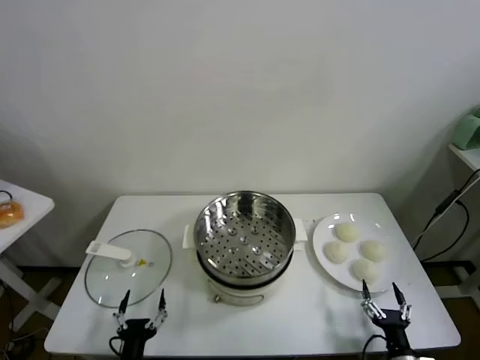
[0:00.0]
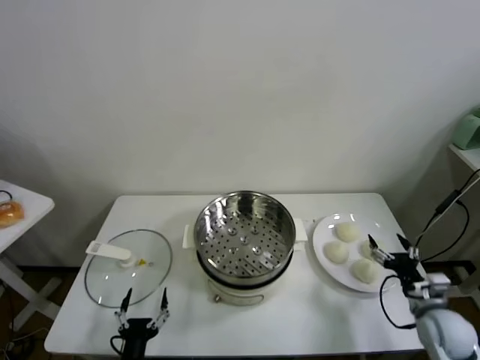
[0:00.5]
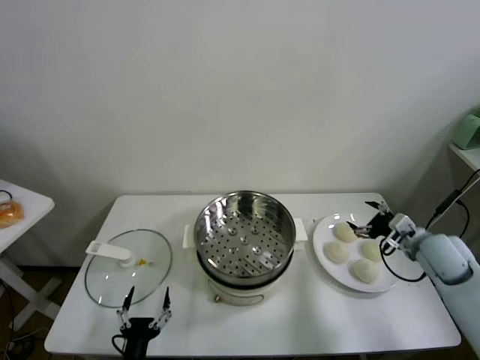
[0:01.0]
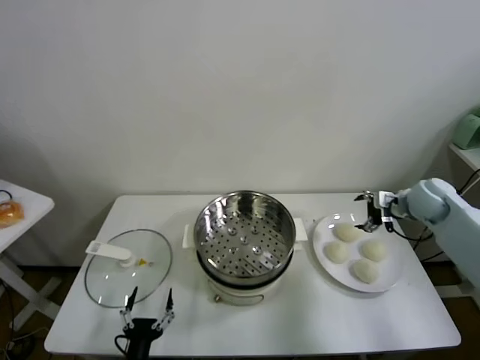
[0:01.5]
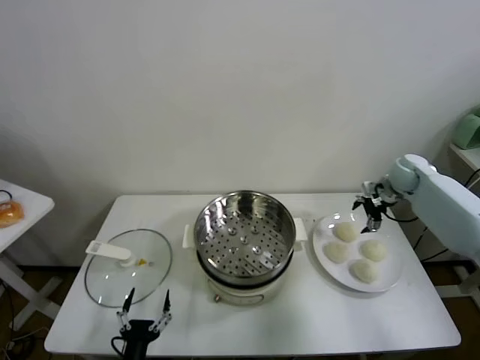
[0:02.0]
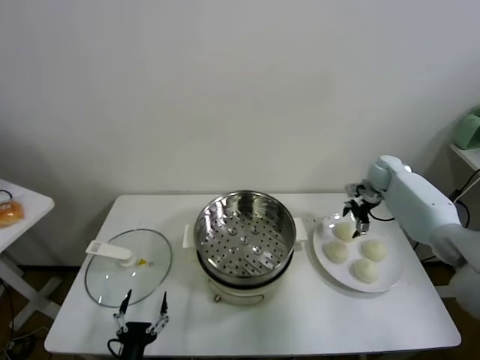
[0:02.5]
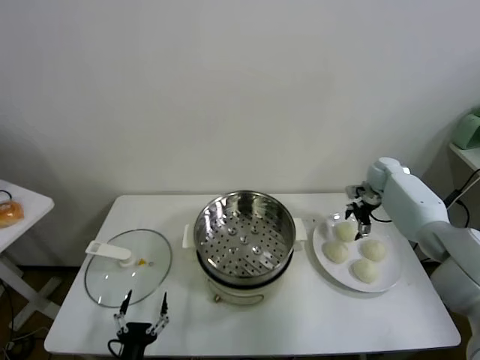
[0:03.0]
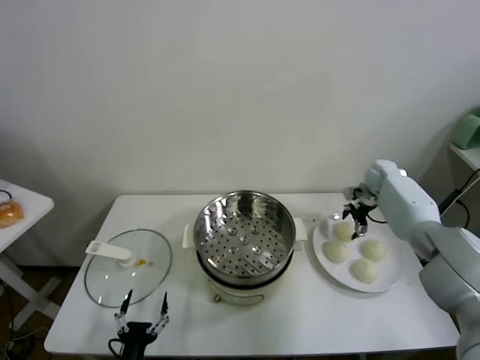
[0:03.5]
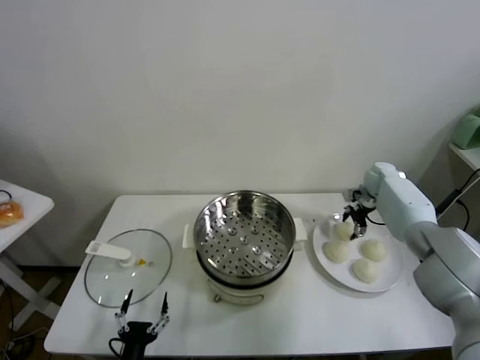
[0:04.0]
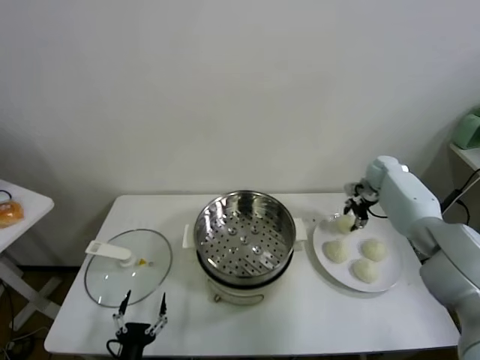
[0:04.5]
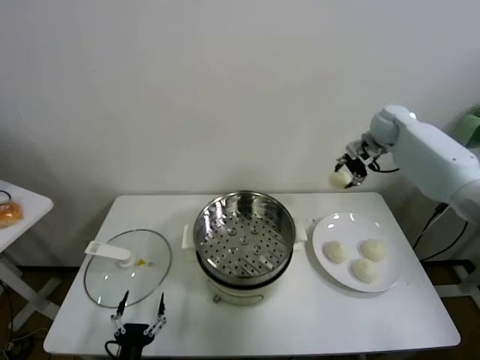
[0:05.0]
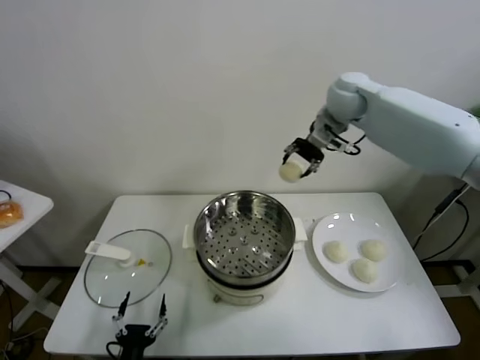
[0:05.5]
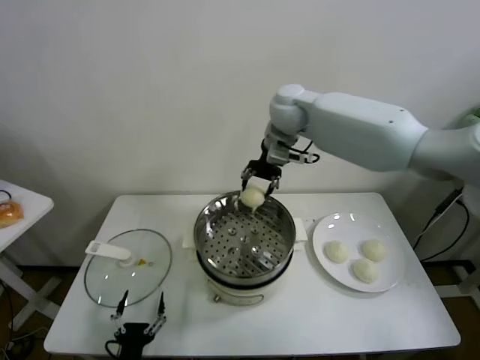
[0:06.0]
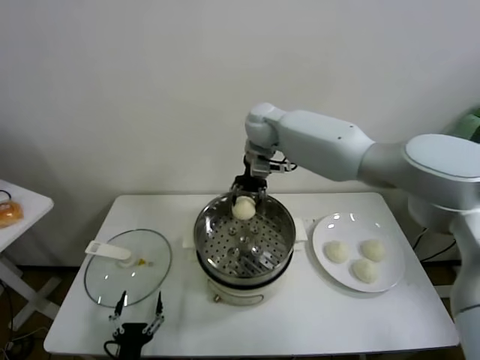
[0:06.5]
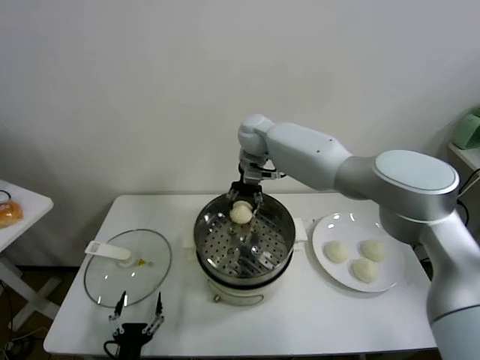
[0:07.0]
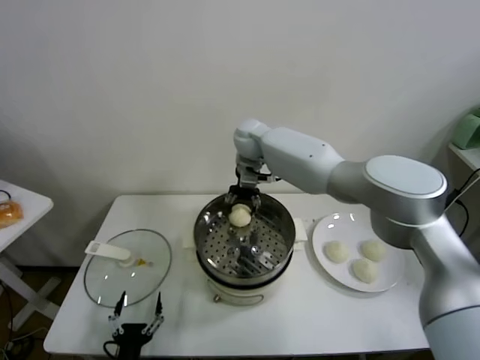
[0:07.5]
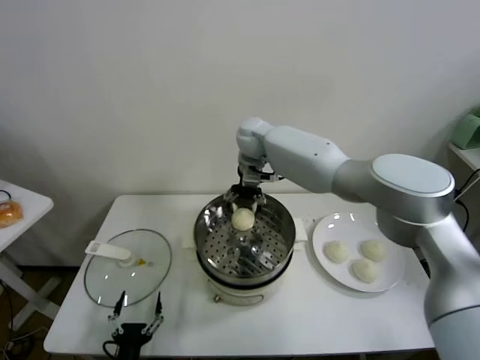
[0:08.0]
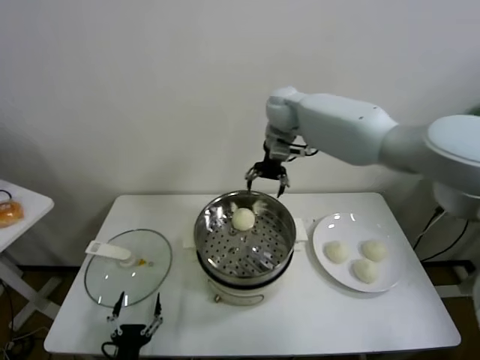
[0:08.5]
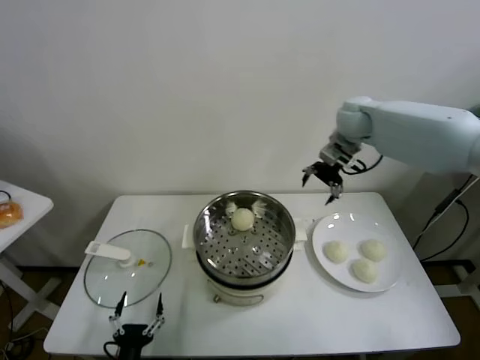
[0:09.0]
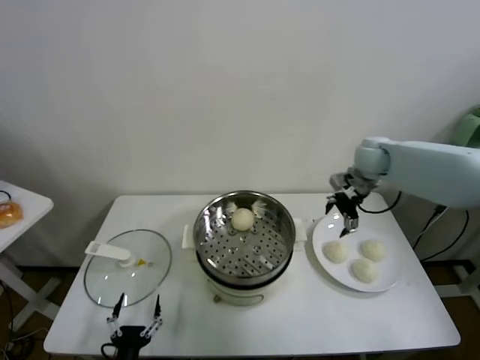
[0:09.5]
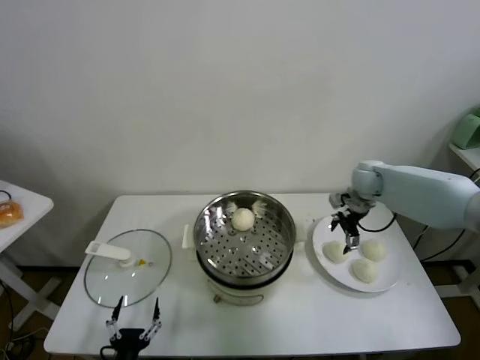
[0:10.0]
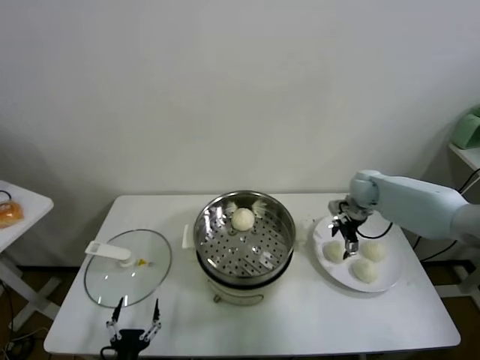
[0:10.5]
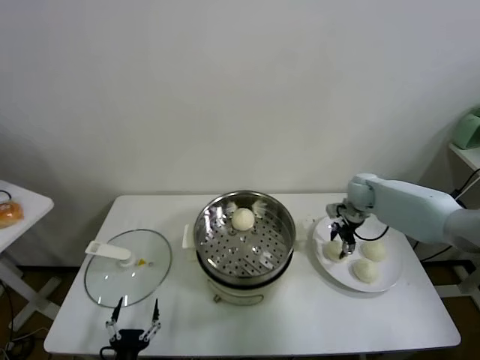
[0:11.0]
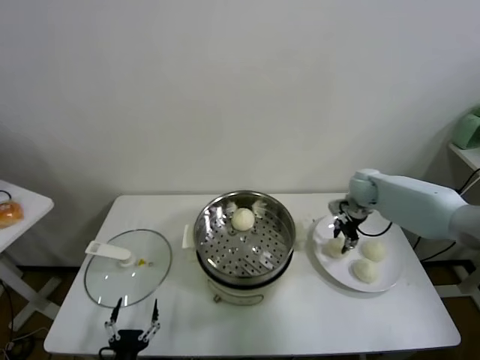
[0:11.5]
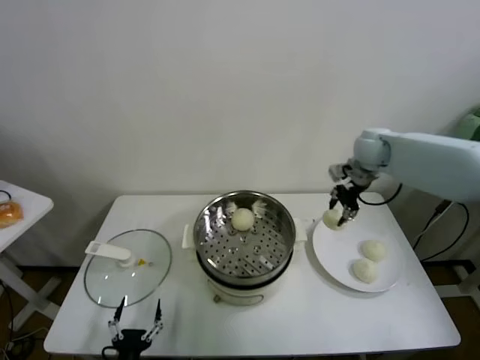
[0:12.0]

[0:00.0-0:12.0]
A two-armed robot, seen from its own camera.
Task of the whole recording: take steamed baozi put them in steamer.
Step, 0.0 to 4.0 s: Grasp the baozi in the plate with right gripper.
Step, 4.5 to 8.0 s: Place the baozi on the steamer with right gripper.
Step, 8.5 to 11.0 s: Grasp the baozi in the plate with right gripper.
2.0 to 4.0 s: The right gripper goes roughly 5 cm downward, and closes its fingers.
4.0 to 6.0 s: The right gripper shifts about 40 cm to the left and upward.
6.0 to 8.0 s: The right gripper shifts about 10 cm downward and to the left, and opens its fingers.
8.0 to 10.0 s: The right gripper heads to the right, covering about 30 cm.
10.0 to 12.0 s: The right gripper goes approximately 10 cm upward, and closes.

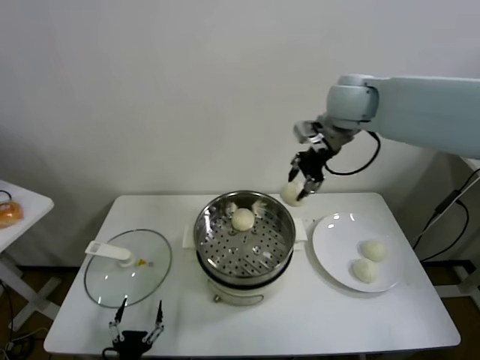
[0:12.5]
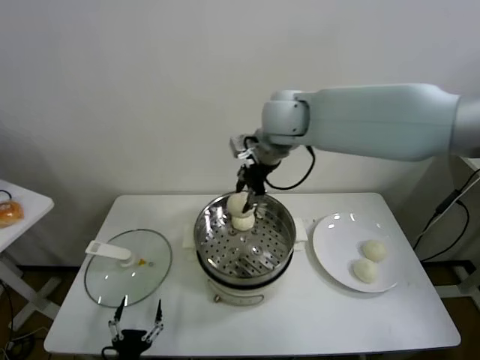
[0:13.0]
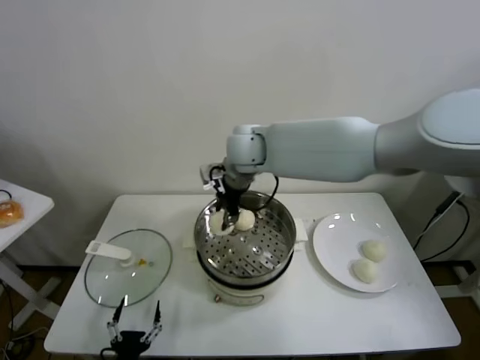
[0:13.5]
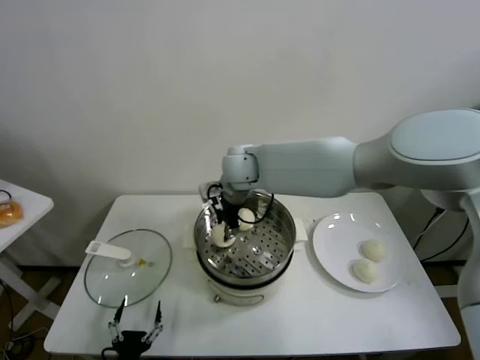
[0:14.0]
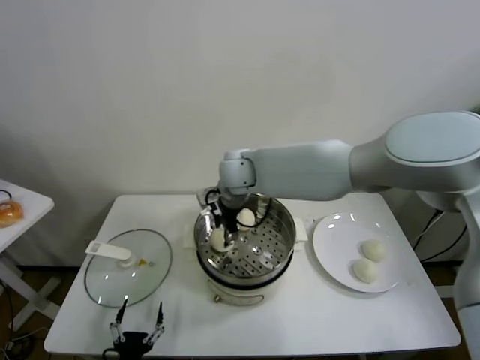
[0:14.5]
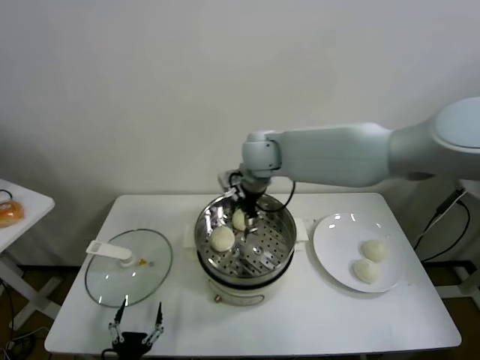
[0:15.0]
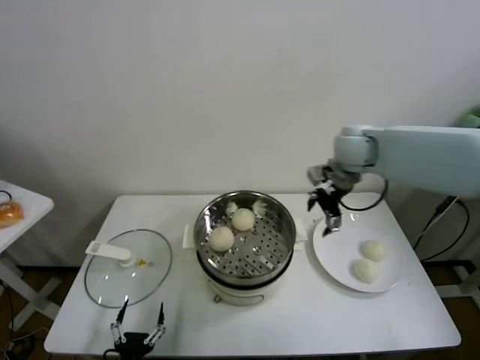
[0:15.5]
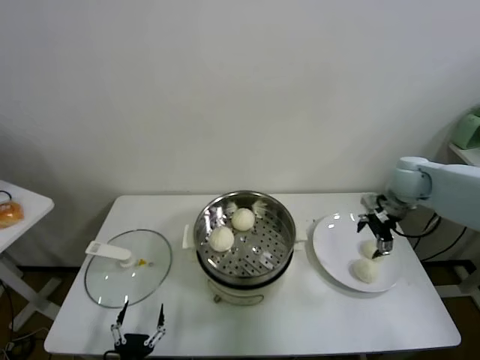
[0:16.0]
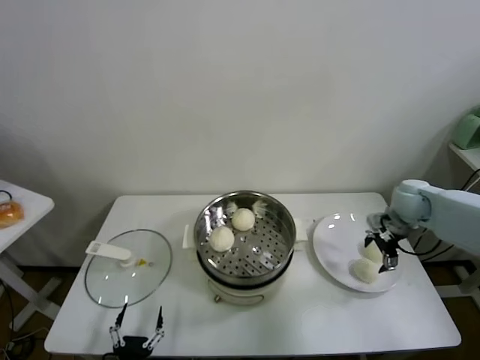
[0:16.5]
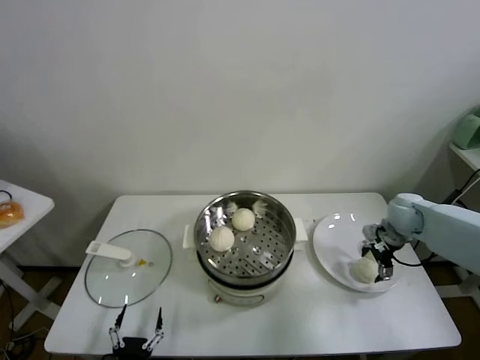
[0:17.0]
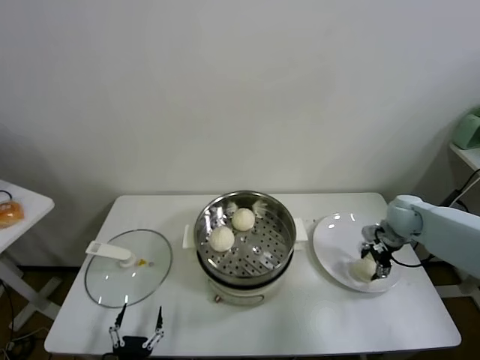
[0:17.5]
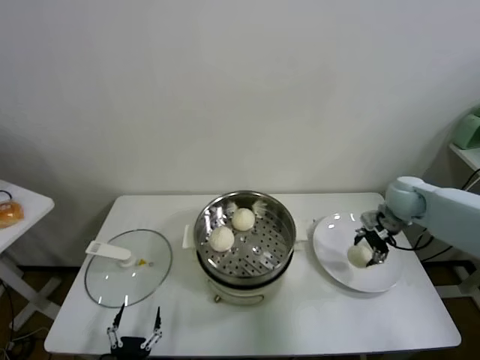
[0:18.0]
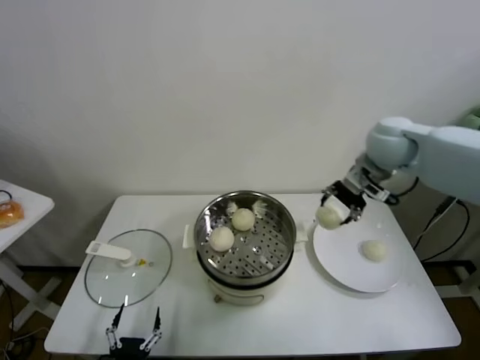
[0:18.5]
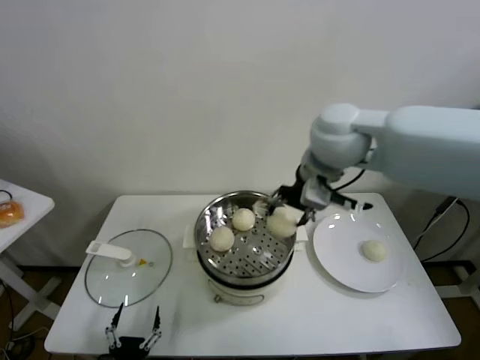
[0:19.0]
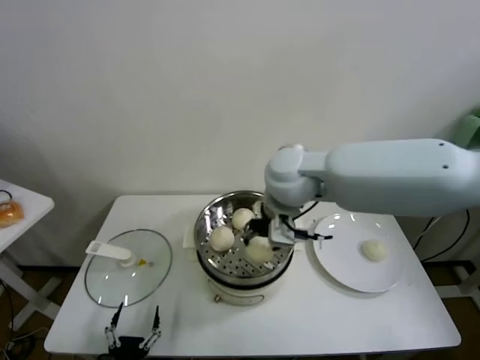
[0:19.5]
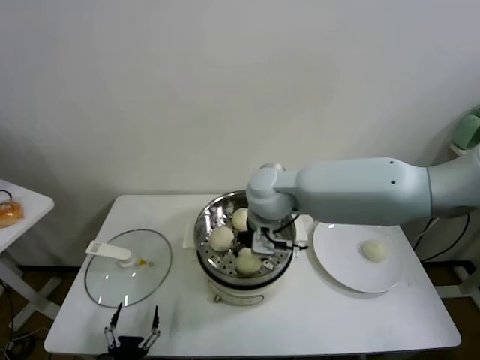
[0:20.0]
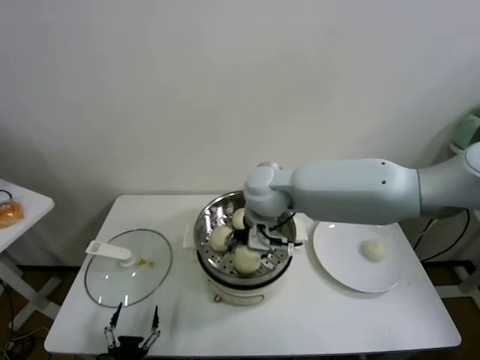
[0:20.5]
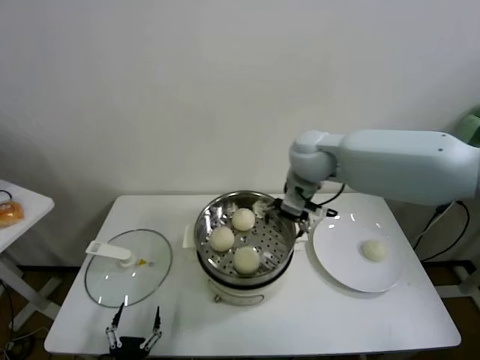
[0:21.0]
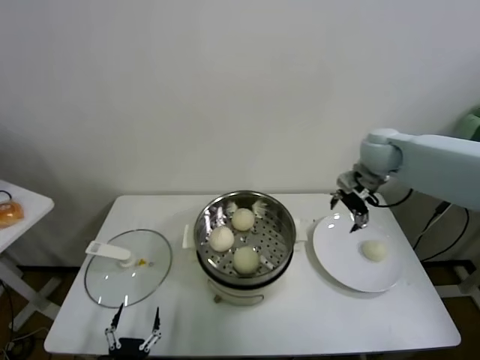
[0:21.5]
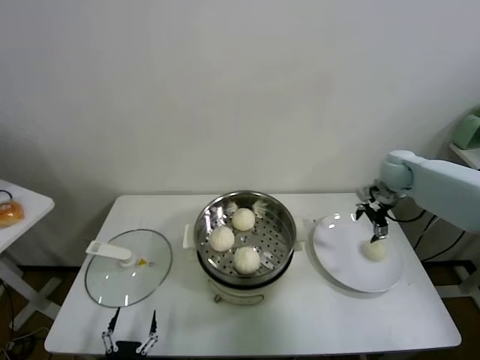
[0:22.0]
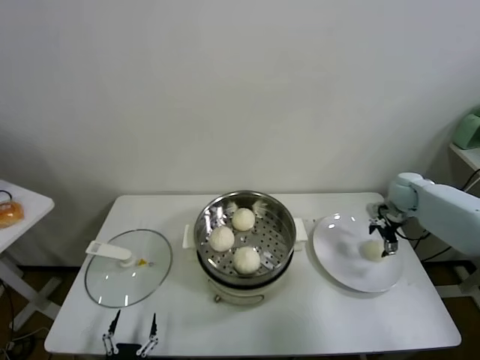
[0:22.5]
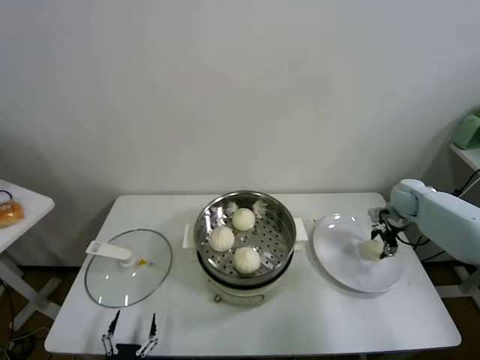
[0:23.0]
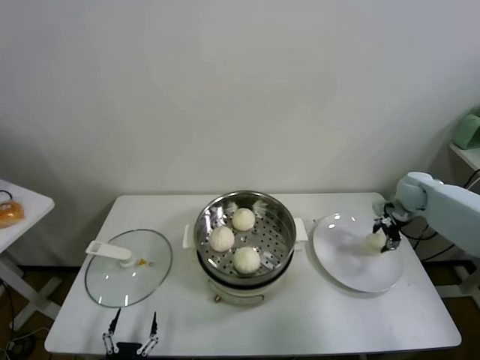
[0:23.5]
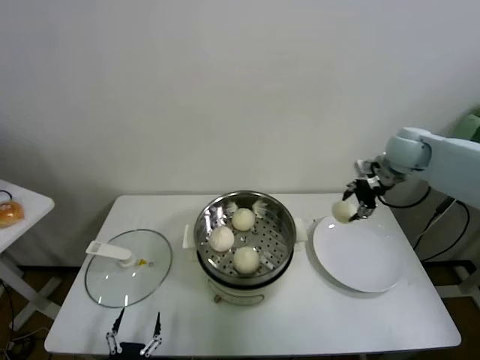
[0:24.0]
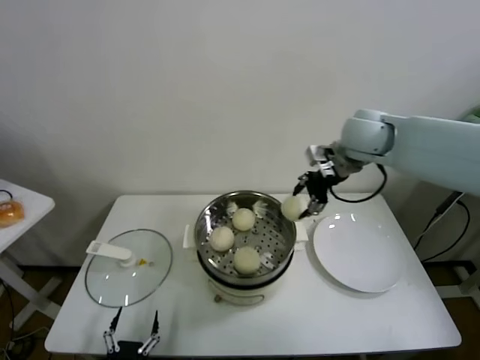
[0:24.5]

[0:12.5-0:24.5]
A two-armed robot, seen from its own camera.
Task of the whole recording: take steamed baozi put them in steamer.
Step, 12.5 to 14.5 s: Place the baozi on the steamer with right gripper.
Step, 15.0 to 17.0 s: Grasp the baozi in the plate with right gripper.
Step, 17.5 to 20.0 s: Place the baozi on the steamer with right gripper.
Step, 21.0 to 23.0 s: Grasp the baozi in the plate with right gripper.
12.5 to 14.5 s: The right gripper goes approximately 25 cm to the left and downward, and opens.
14.5 to 16.5 s: The right gripper goes about 40 cm to the right, and opens.
16.5 to 18.5 s: The right gripper goes about 20 cm upward and to the left, and closes.
18.5 to 20.5 s: The right gripper is displaced to the left by some 25 cm, and opens its fingers.
20.5 to 22.5 s: The right gripper heads to the right, covering about 40 cm.
22.5 to 24.5 s: The right gripper shifts about 30 cm upward and to the left, and closes its fingers.

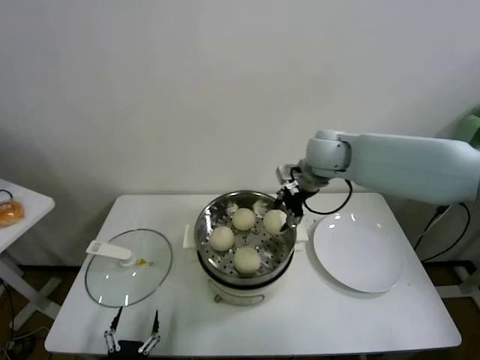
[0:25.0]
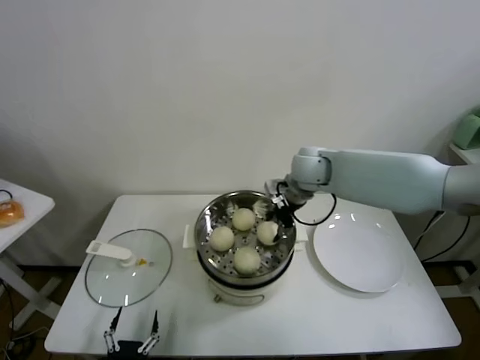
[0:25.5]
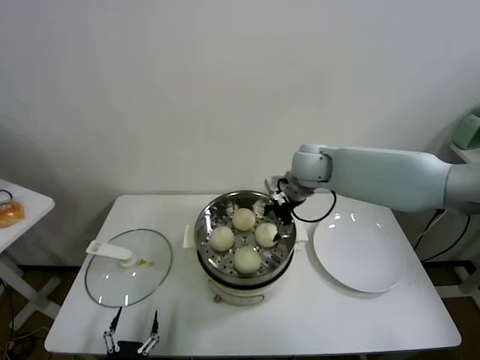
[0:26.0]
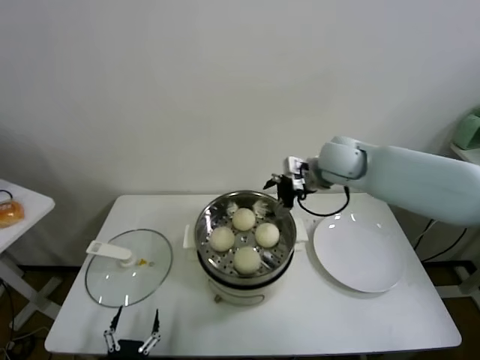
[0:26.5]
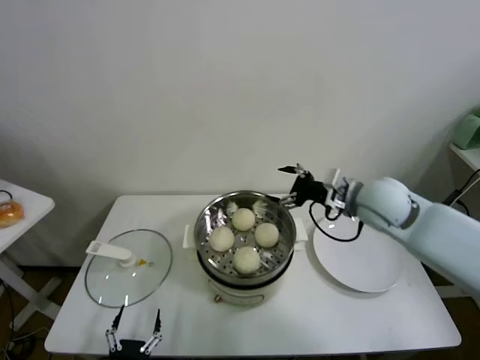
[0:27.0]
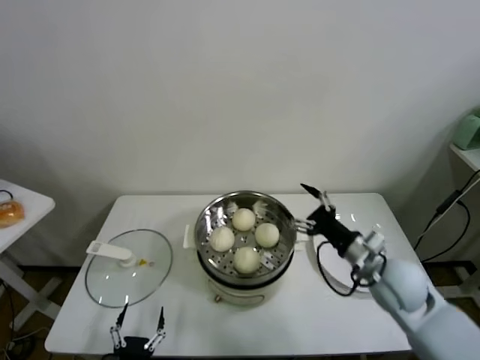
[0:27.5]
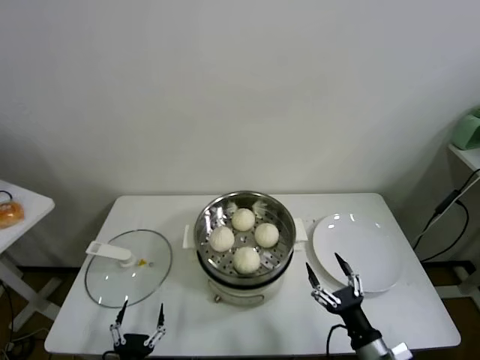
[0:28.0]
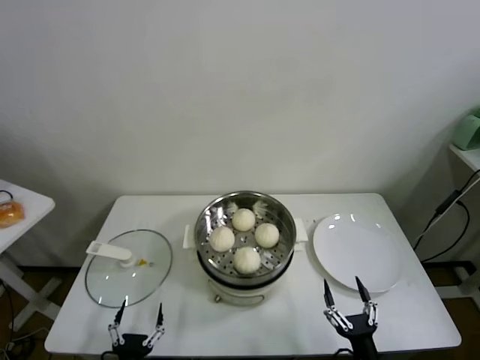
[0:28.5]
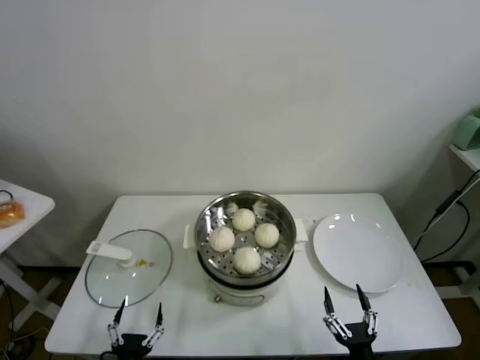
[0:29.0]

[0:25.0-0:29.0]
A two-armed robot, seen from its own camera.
Task of the whole recording: take steamed baozi put them in steamer.
25.0 to 27.0 s: The right gripper goes roughly 15 cm backward, to the right and downward, and opens its fingers.
27.0 to 29.0 s: The right gripper shifts about 50 cm backward and downward.
